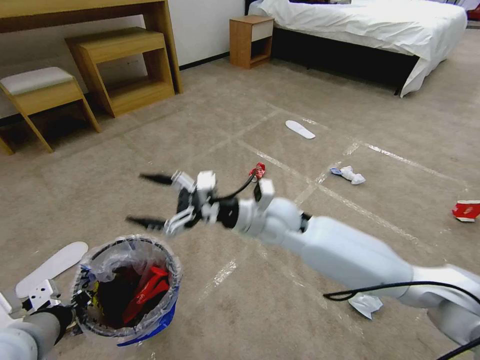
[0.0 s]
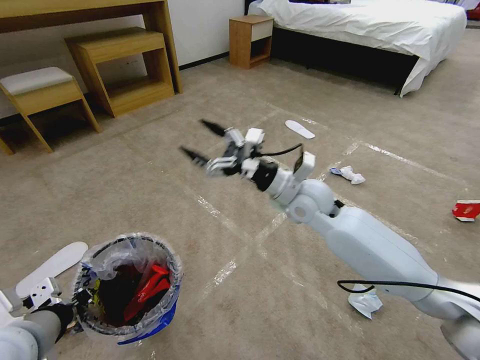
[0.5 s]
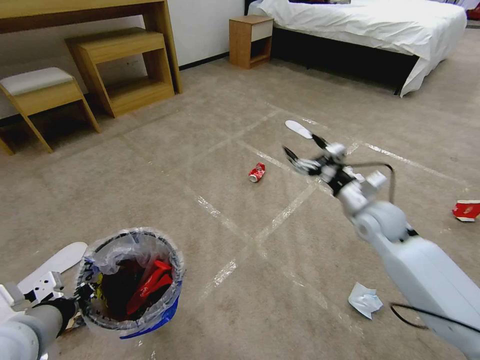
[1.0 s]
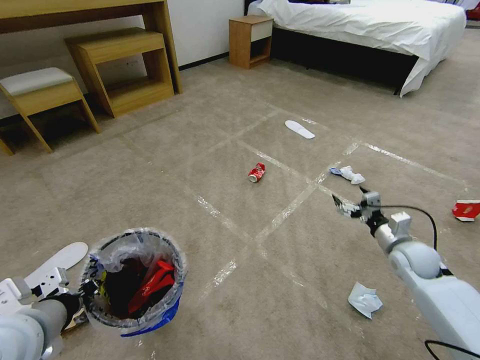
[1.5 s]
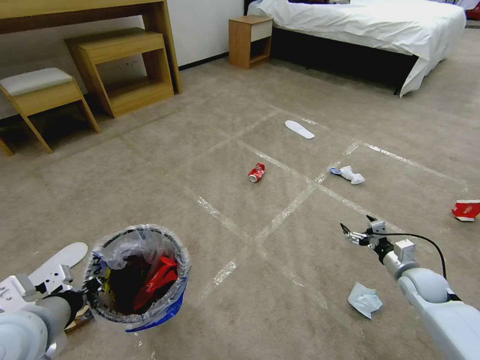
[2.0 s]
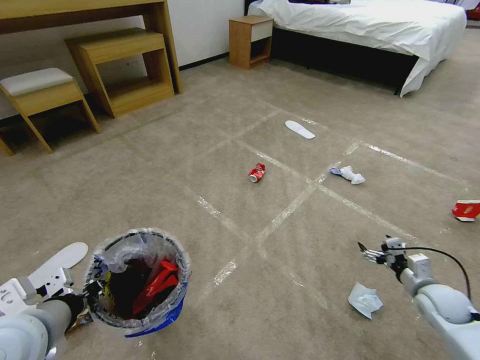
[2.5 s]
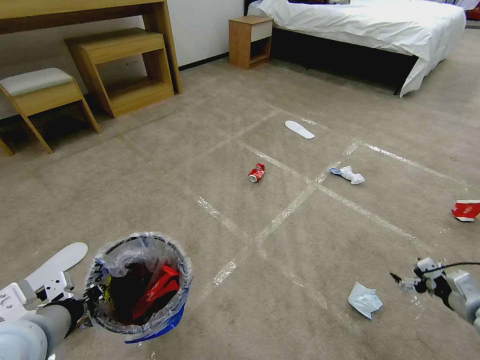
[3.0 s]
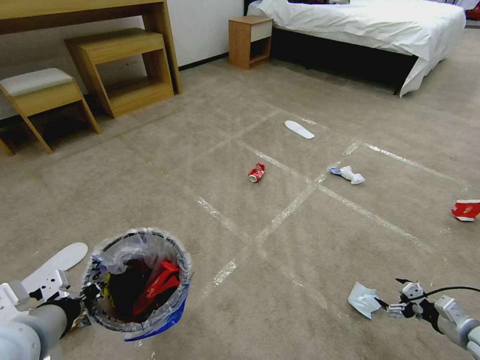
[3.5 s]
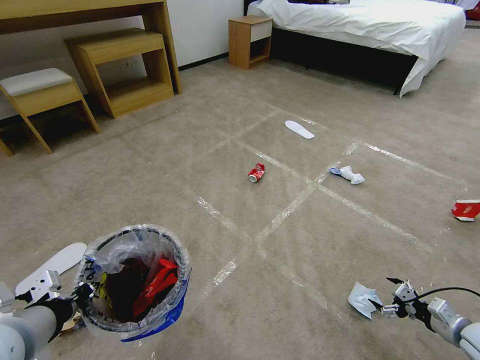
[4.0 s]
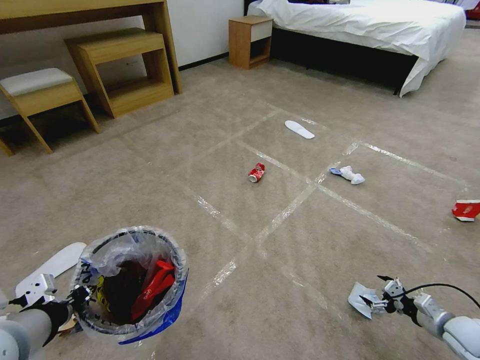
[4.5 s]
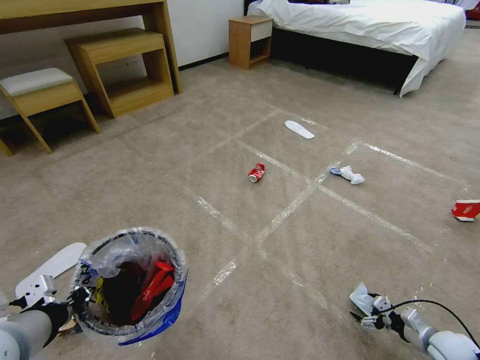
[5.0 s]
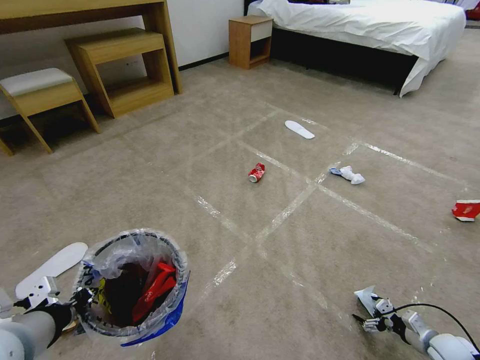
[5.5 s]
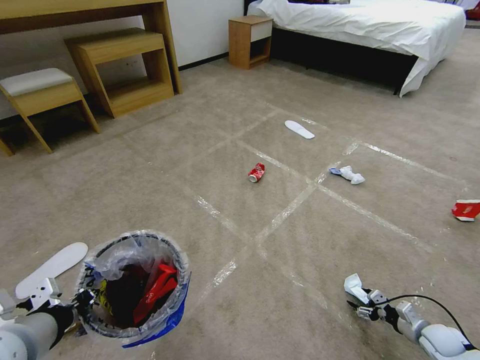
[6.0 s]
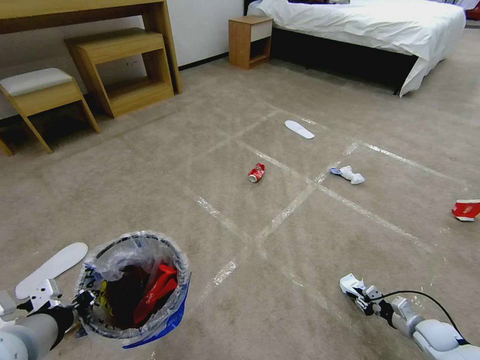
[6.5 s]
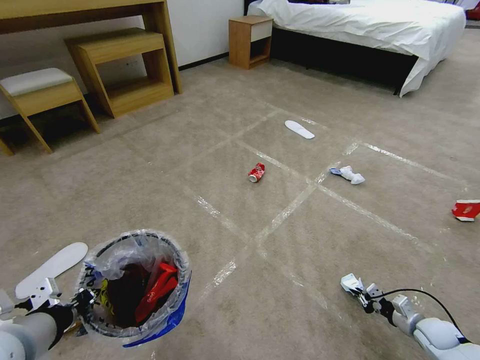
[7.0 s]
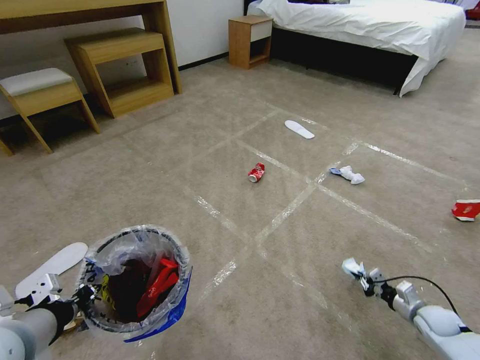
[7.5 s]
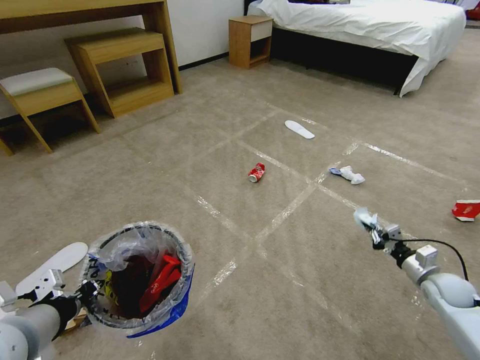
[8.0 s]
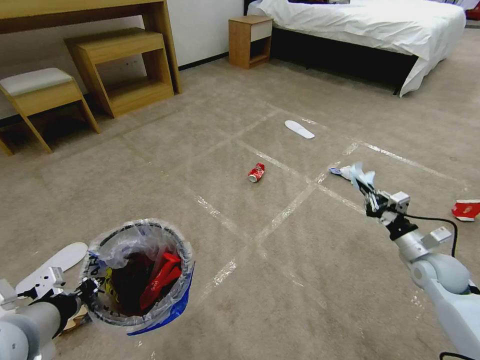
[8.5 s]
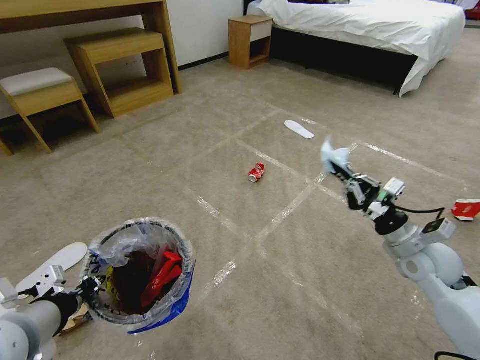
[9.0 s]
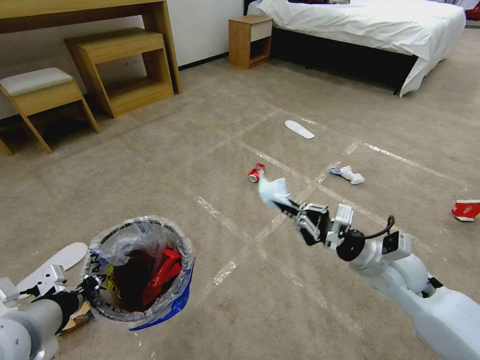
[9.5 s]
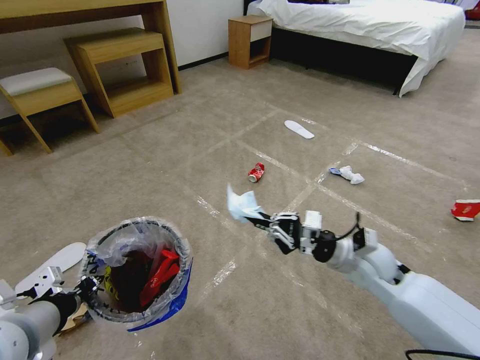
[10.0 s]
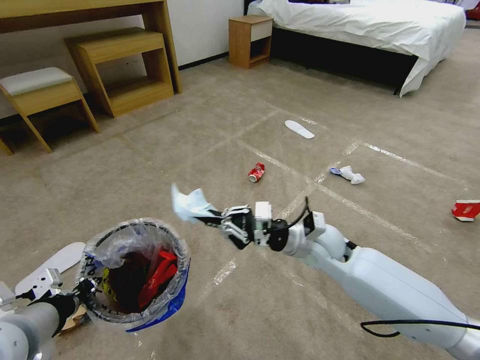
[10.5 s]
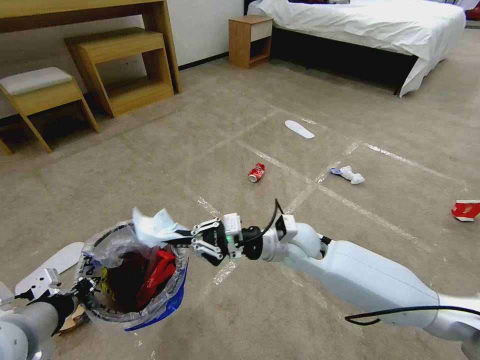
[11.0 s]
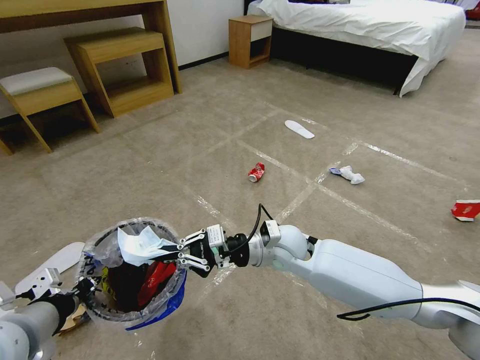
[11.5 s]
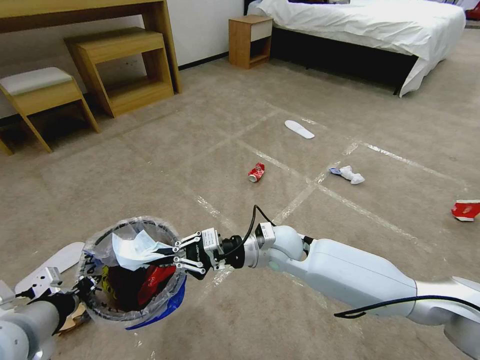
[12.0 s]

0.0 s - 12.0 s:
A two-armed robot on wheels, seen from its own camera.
Task of the whole recording: Pick up the trash bin and place the garbage on the floor into it.
0.0 s - 2.0 s: The right gripper shifts roughly 40 cm to the right and downward.
2.0 s - 4.0 s: The right gripper heads backward and to the right, covering some 15 cm.
4.0 s - 6.0 s: The right gripper shifts approximately 10 cm downward.
6.0 s - 8.0 s: The right gripper heads upward and forward, covering approximately 15 cm, and closes up.
8.0 s - 10.0 s: The right gripper shifts about 25 cm to the left and upward.
10.0 s - 12.0 s: The right gripper goes about 20 cm to the left.

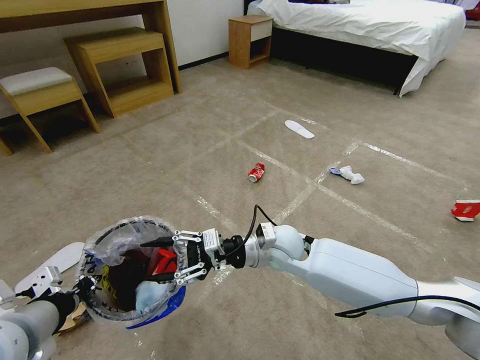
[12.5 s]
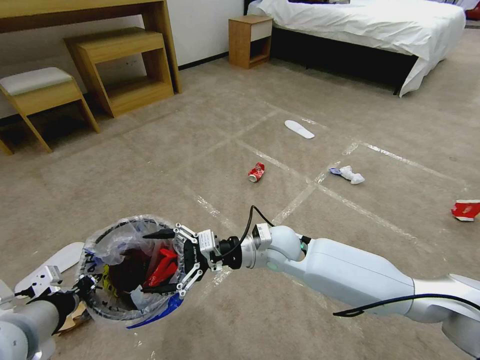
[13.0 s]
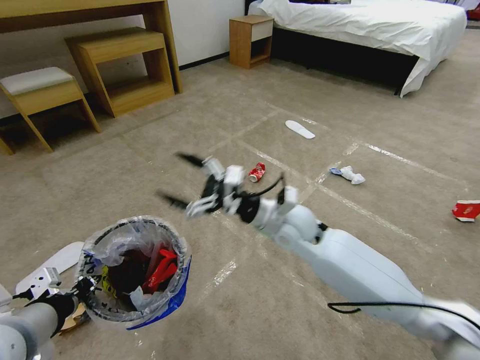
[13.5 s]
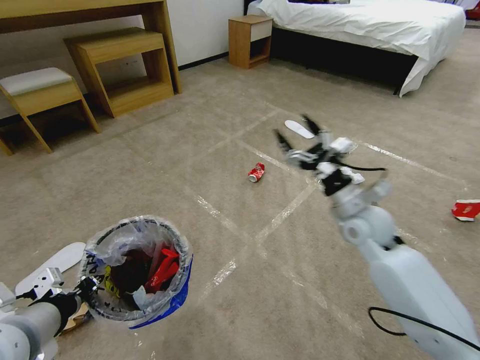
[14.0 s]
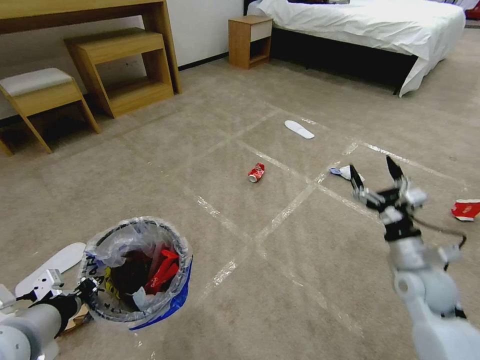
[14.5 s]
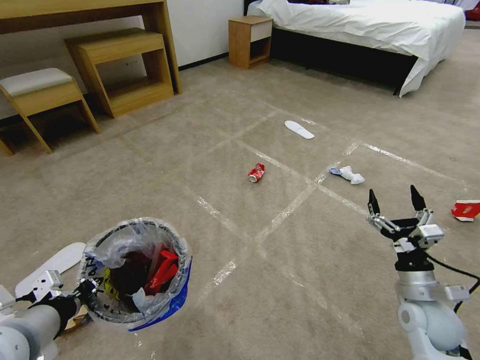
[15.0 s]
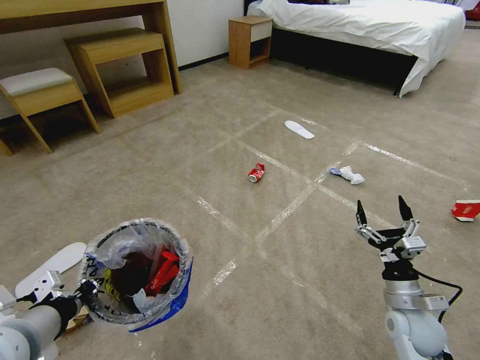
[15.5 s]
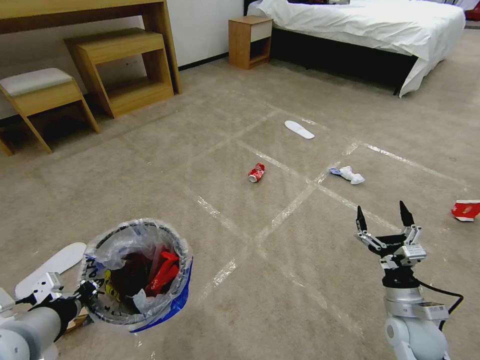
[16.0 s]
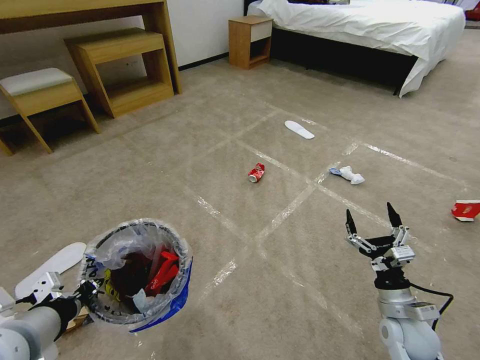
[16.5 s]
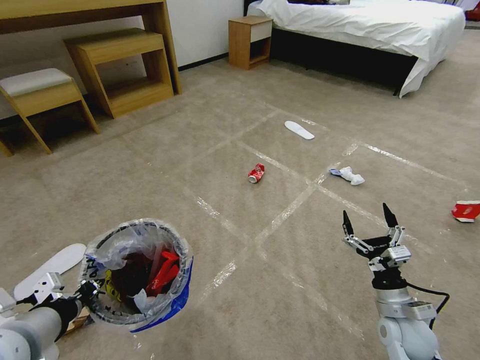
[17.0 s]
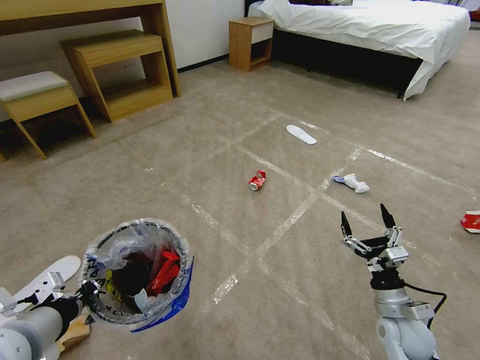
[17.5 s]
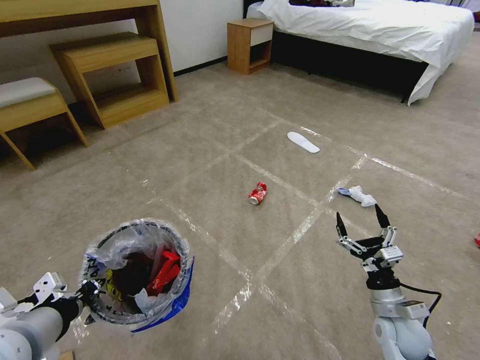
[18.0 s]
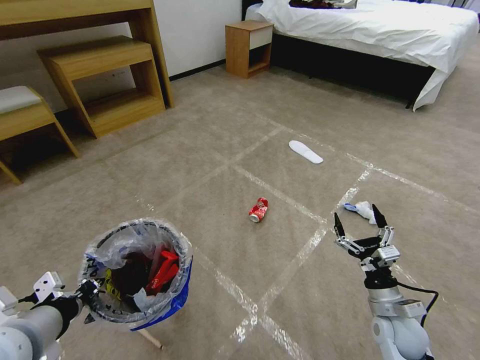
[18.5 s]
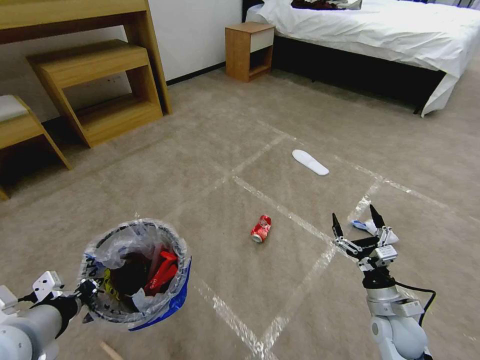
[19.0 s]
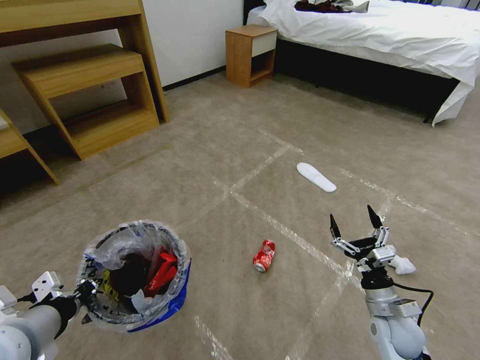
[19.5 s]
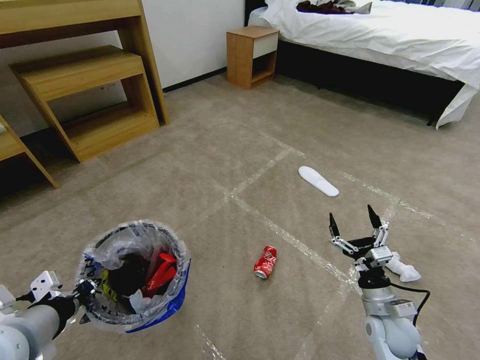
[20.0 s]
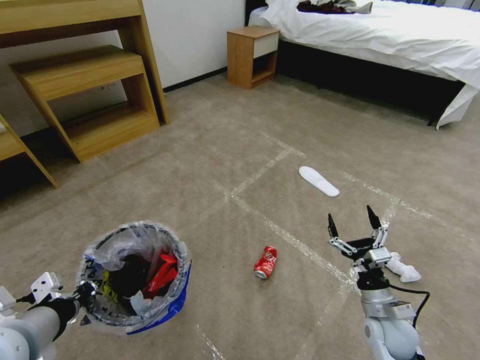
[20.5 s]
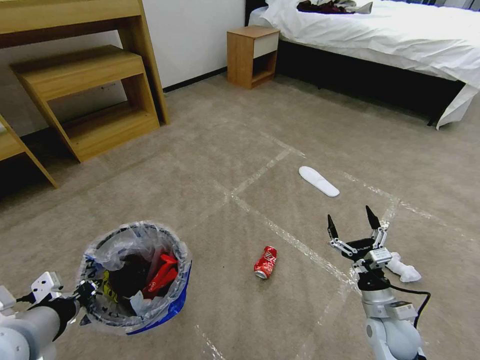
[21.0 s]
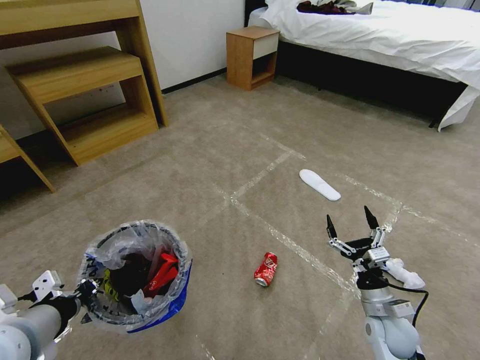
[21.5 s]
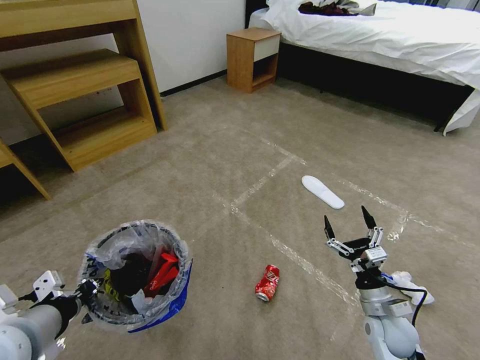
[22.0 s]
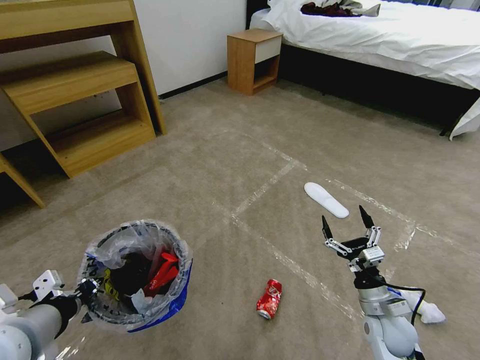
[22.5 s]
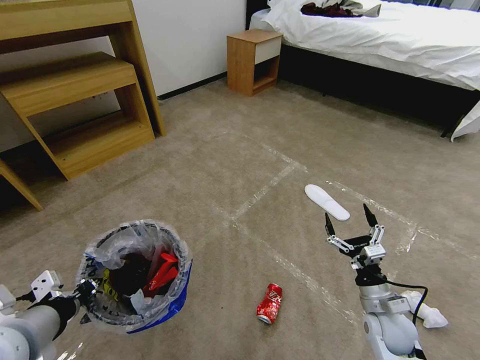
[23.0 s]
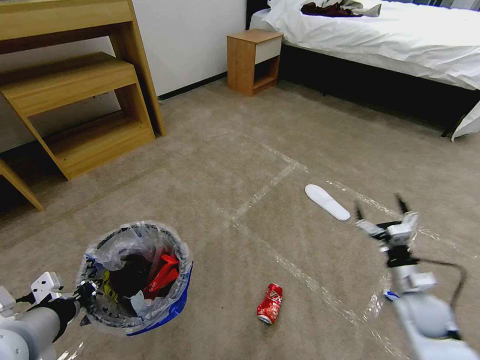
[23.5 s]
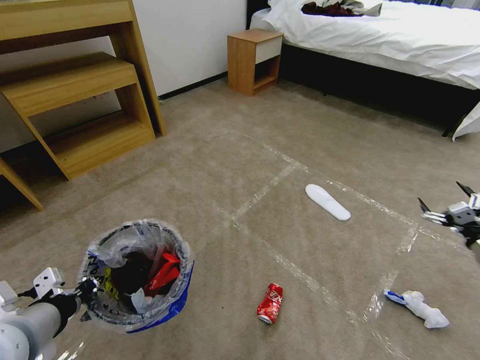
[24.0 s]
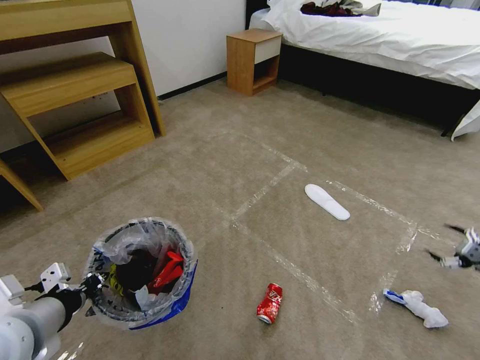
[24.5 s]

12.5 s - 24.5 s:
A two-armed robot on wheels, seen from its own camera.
Task of the whole recording: Pick up the trash bin and place the garbage on the floor into it.
12.5 s - 14.5 s: The right gripper shifts some 30 cm to the right, and opens.
14.5 s - 16.5 s: The right gripper goes roughly 10 cm downward and backward.
22.5 s - 24.5 s: The right gripper is displaced to the right by roughly 40 cm.

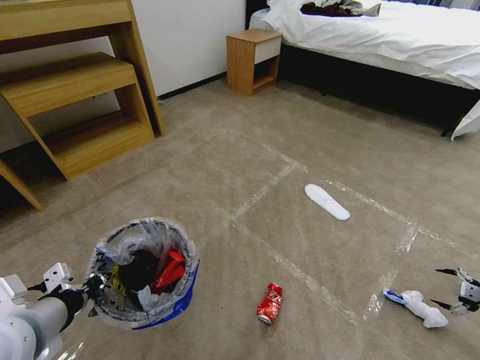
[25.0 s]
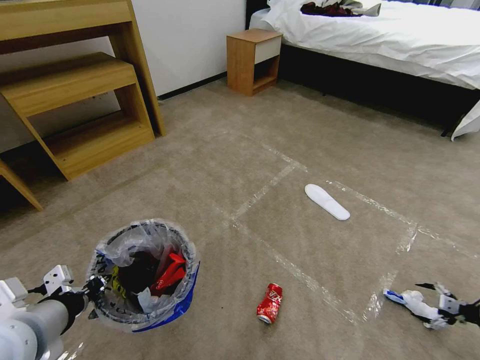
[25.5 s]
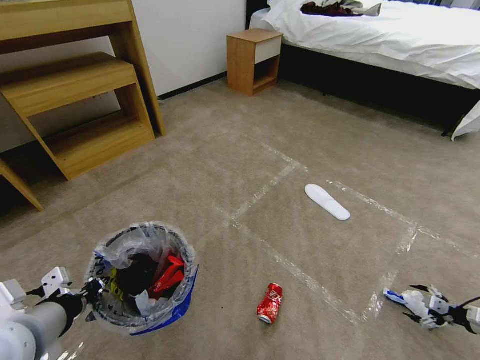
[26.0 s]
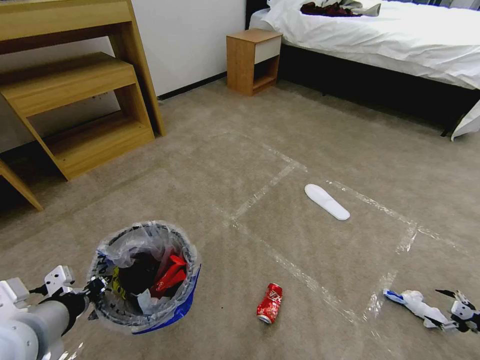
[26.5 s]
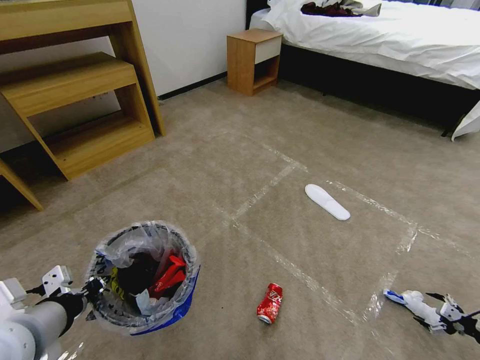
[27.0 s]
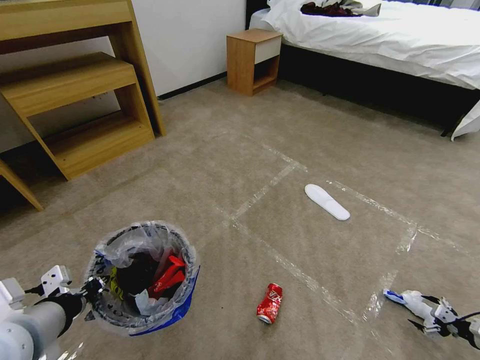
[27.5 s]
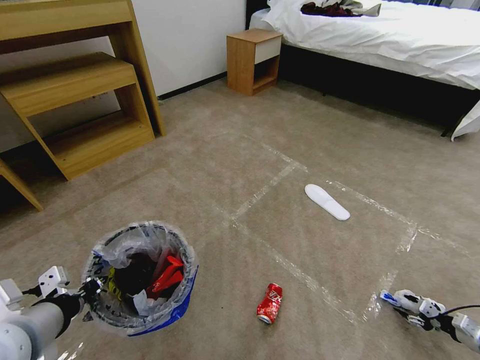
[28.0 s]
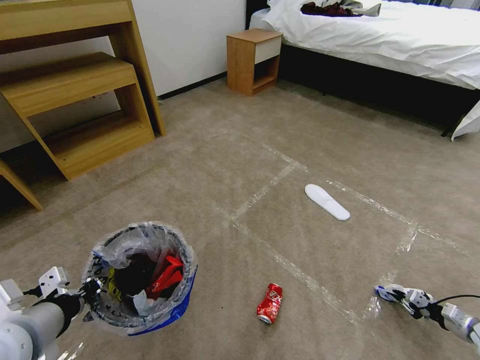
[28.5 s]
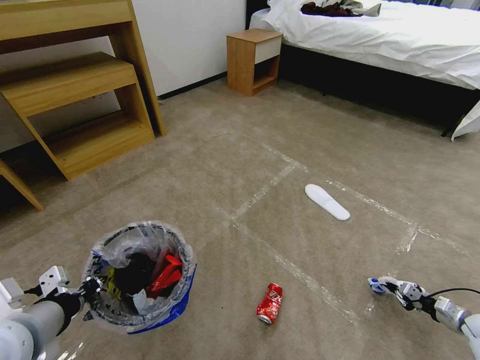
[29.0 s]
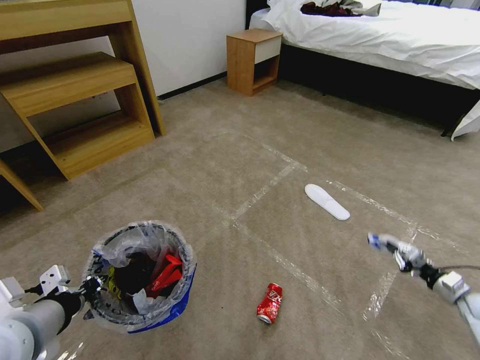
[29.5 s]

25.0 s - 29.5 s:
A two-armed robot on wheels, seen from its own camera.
Task of the whole recording: Pick up the trash bin and place the garbage on the floor into it.
25.0 s - 27.0 s: The right gripper shifts approximately 10 cm downward.
27.0 s - 29.5 s: The right gripper travels to the left and forward by approximately 10 cm, and closes.
